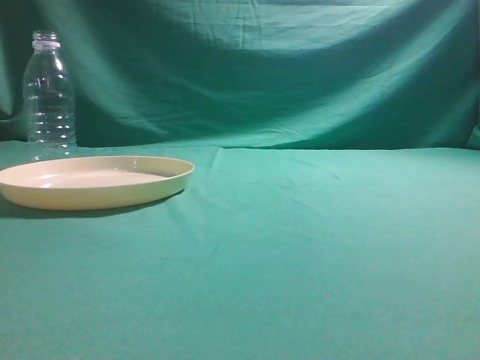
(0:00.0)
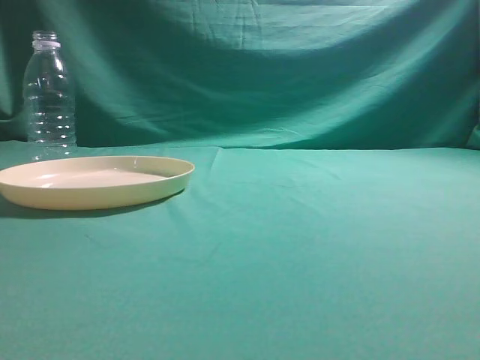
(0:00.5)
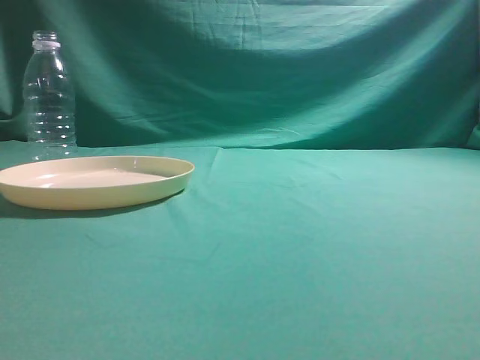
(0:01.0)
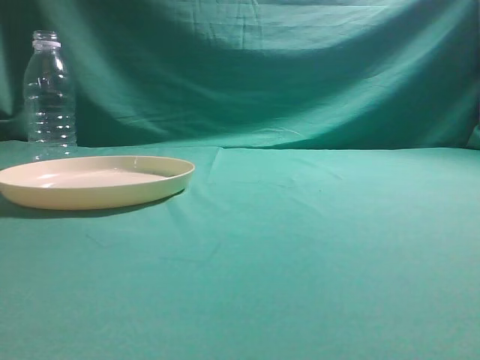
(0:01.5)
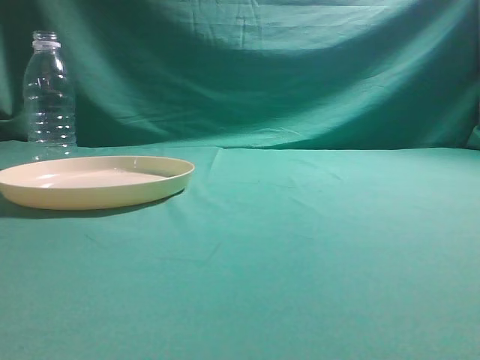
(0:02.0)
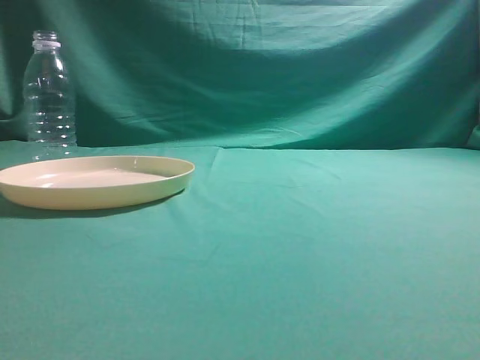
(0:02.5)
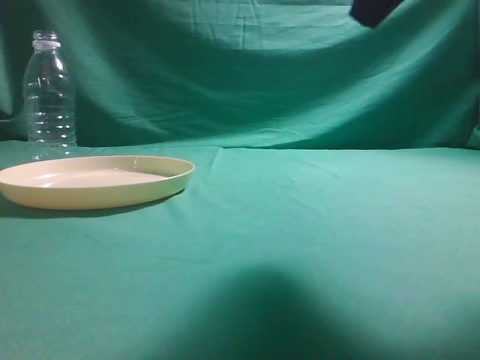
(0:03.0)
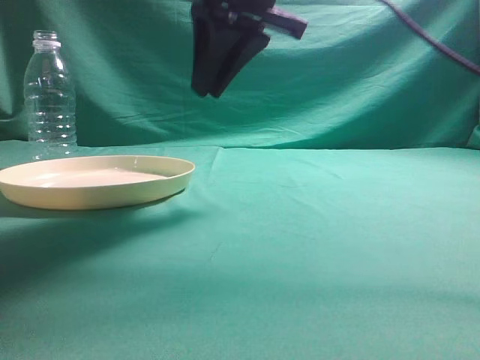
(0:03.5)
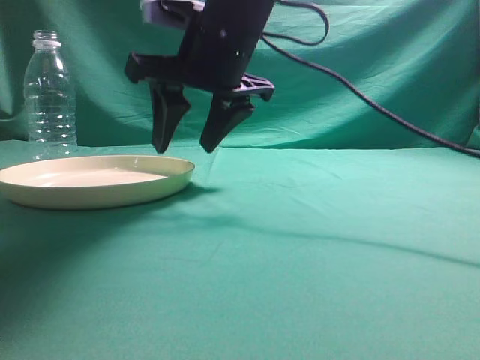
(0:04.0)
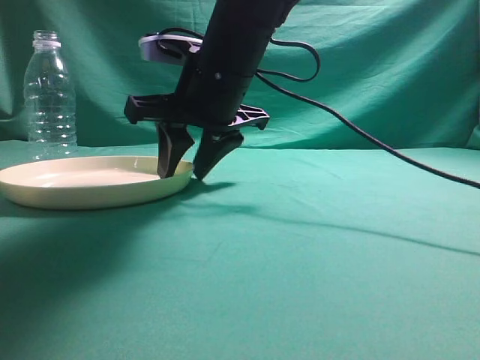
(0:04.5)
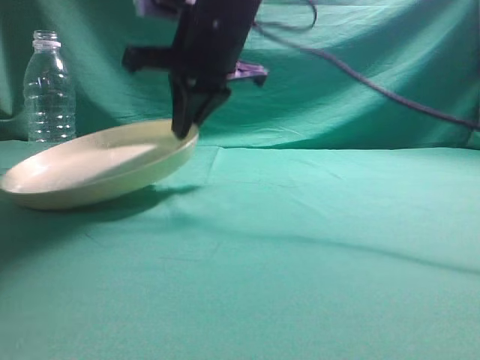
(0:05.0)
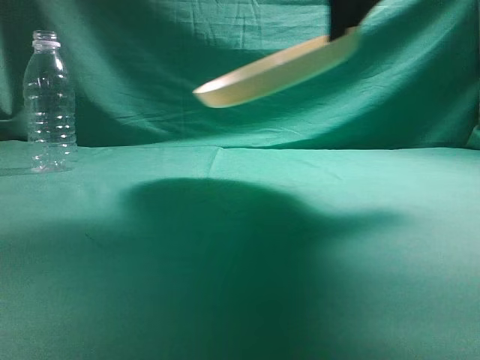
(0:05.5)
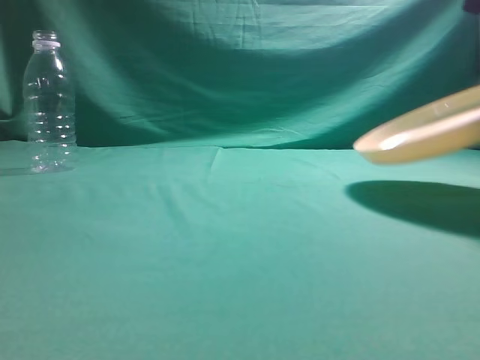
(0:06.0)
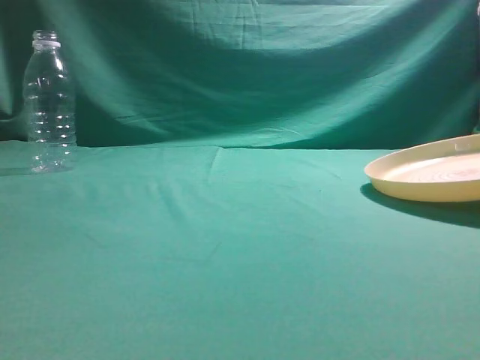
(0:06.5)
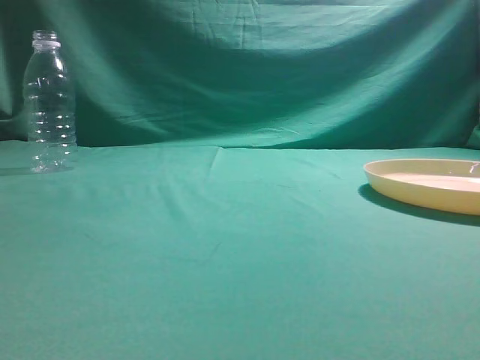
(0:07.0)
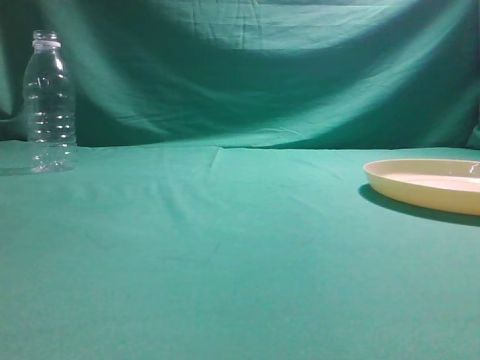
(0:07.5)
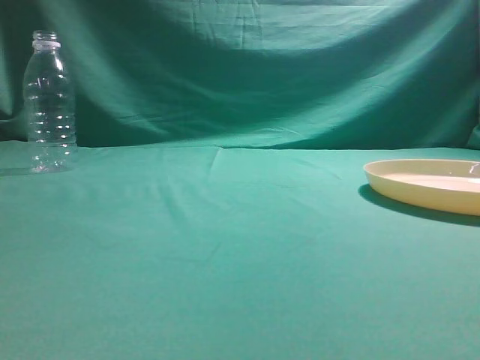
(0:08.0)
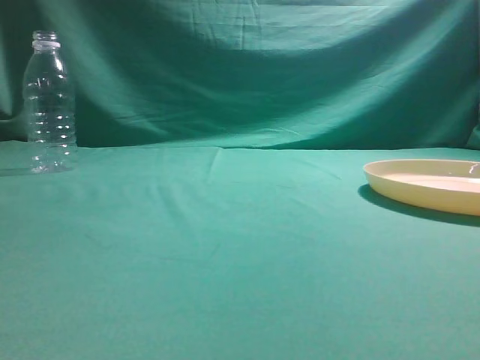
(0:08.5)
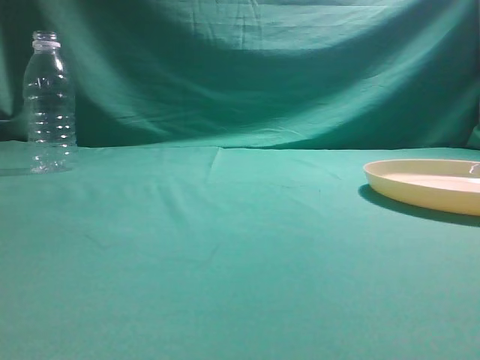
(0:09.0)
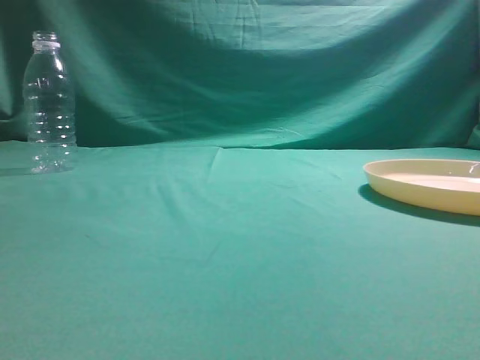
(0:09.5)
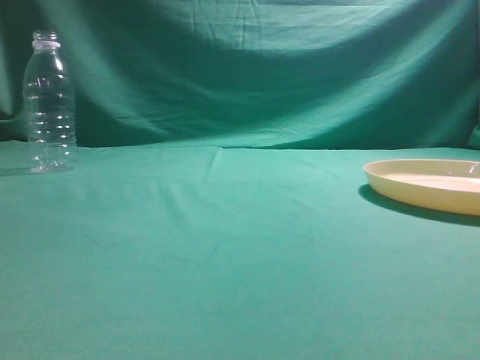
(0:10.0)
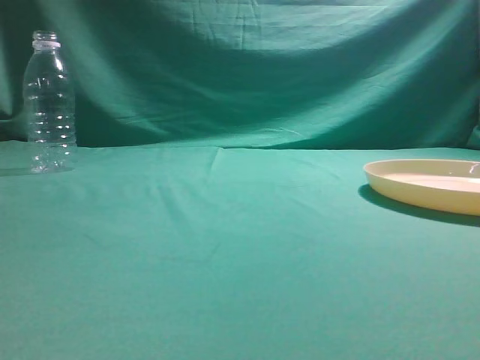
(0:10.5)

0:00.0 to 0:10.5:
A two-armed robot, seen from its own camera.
Step, 0:00.0 to 0:05.0: Pick the container that can hold fruits.
Step, 0:05.5 to 0:07.0: Move the picked object to the right side of the table.
0:02.0 to 0:04.0: The right gripper travels forward and to the left by about 40 cm, and opens its fingers.
0:04.0 to 0:06.5: The right gripper heads to the right, covering about 30 cm, and closes up.
0:06.5 to 0:08.5: The right gripper goes some 40 cm backward and upward, and opens, then closes once more.
